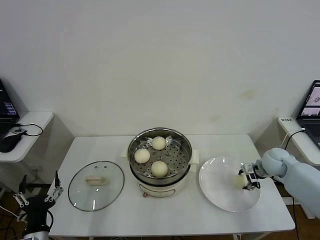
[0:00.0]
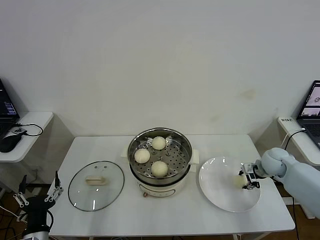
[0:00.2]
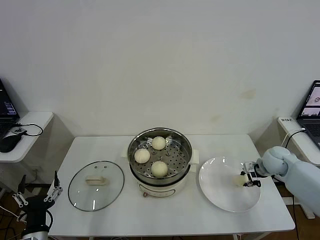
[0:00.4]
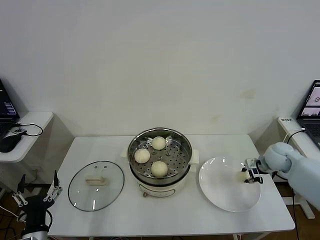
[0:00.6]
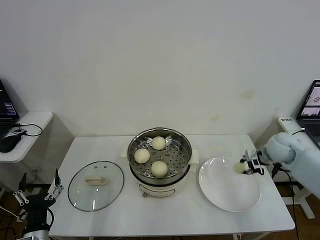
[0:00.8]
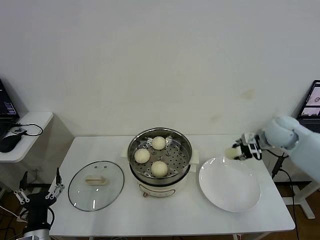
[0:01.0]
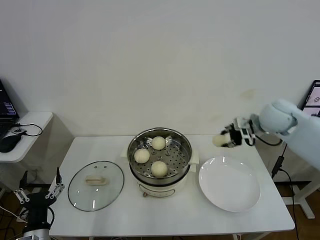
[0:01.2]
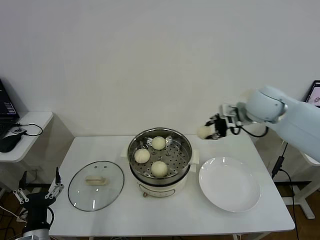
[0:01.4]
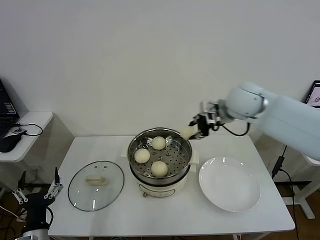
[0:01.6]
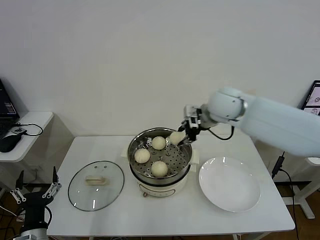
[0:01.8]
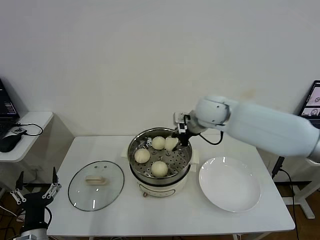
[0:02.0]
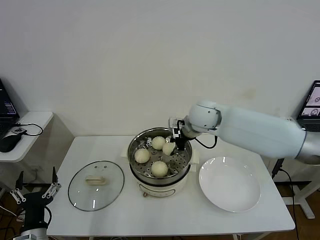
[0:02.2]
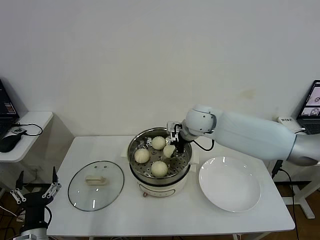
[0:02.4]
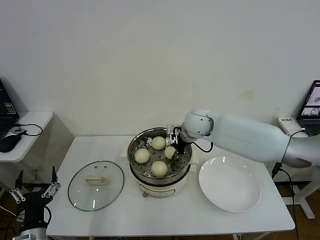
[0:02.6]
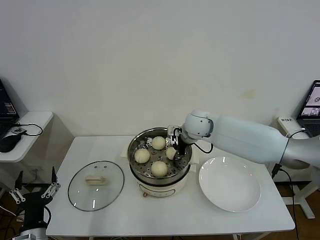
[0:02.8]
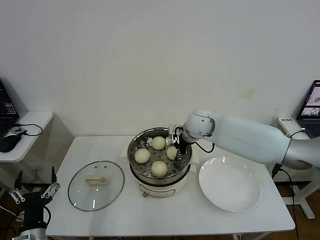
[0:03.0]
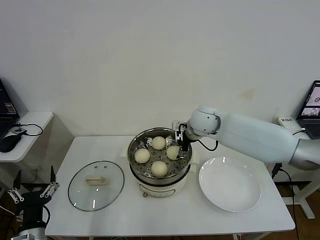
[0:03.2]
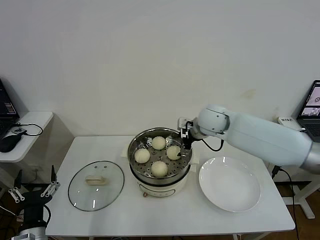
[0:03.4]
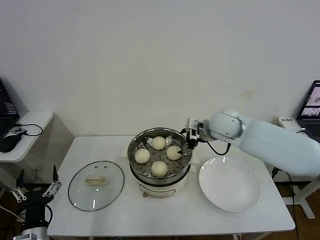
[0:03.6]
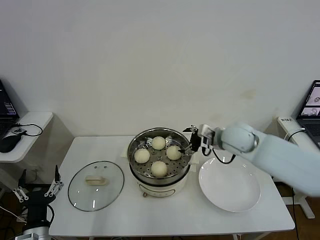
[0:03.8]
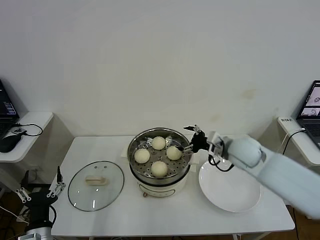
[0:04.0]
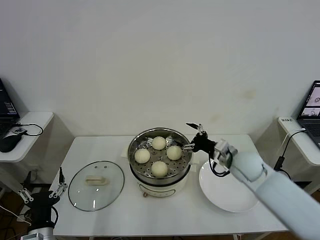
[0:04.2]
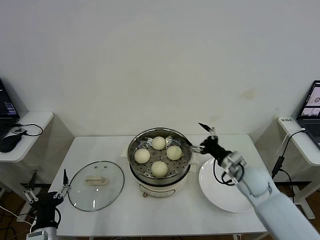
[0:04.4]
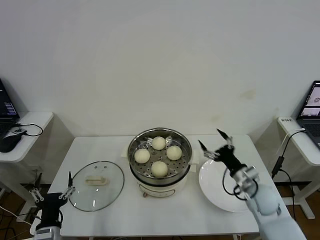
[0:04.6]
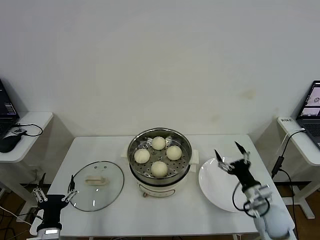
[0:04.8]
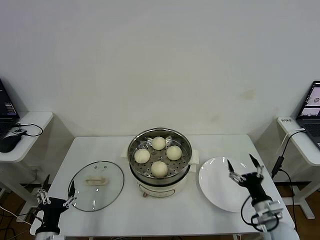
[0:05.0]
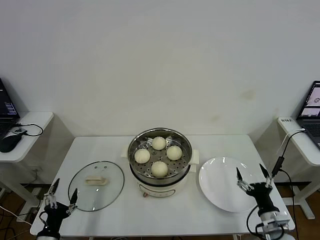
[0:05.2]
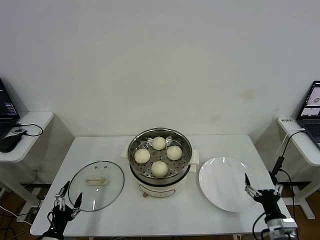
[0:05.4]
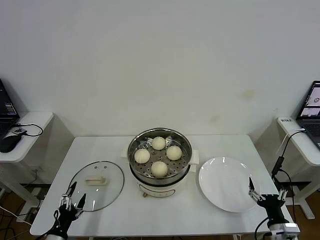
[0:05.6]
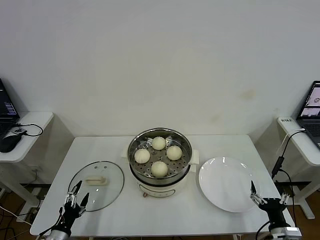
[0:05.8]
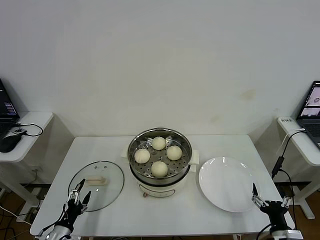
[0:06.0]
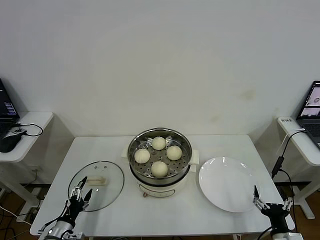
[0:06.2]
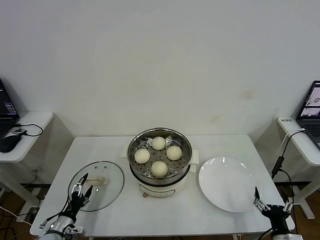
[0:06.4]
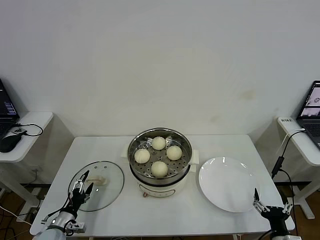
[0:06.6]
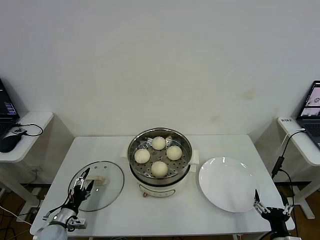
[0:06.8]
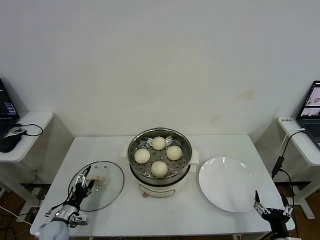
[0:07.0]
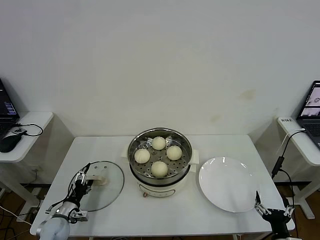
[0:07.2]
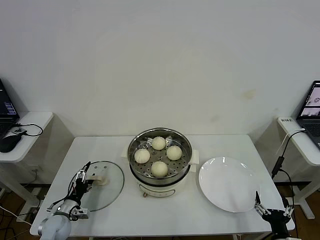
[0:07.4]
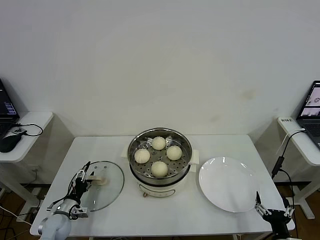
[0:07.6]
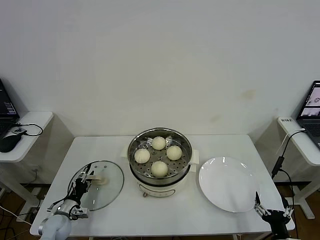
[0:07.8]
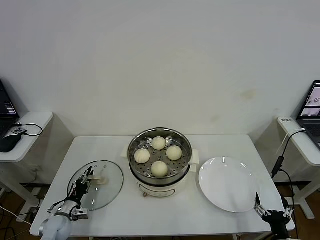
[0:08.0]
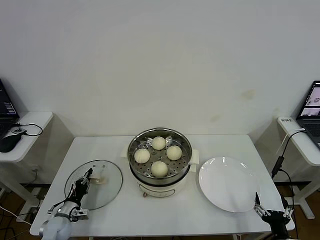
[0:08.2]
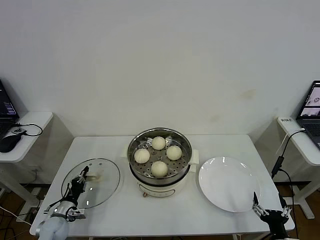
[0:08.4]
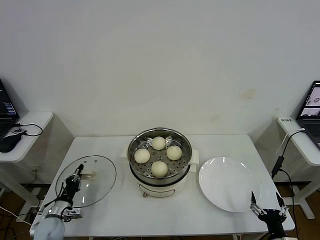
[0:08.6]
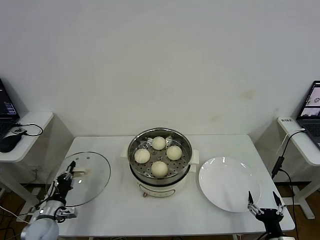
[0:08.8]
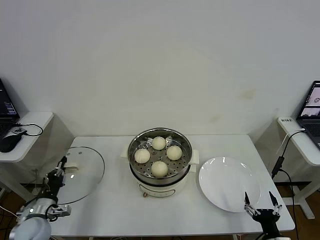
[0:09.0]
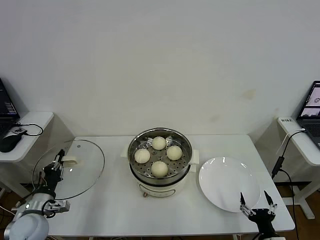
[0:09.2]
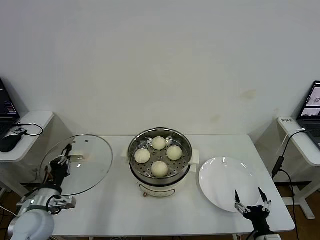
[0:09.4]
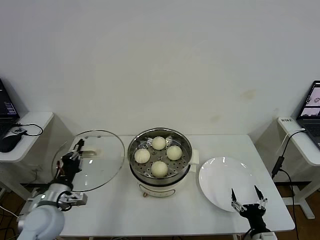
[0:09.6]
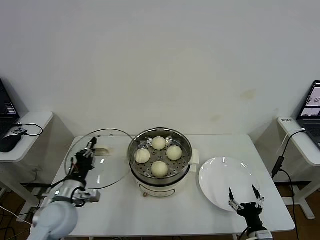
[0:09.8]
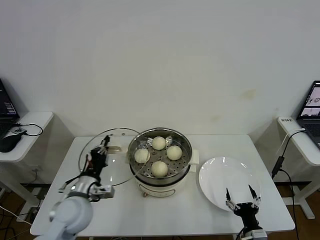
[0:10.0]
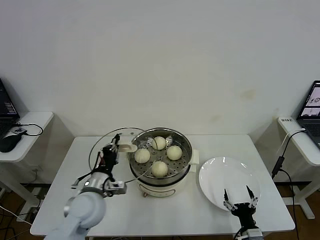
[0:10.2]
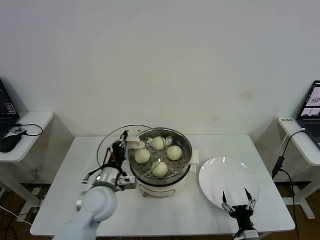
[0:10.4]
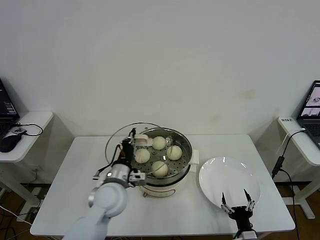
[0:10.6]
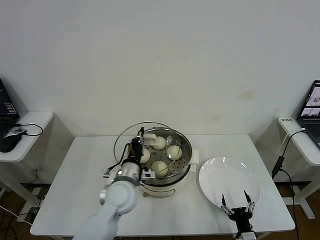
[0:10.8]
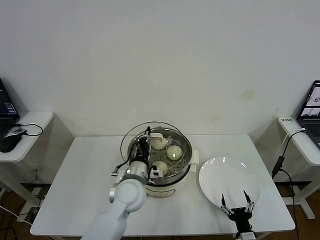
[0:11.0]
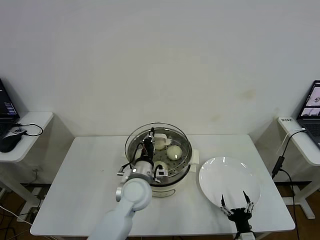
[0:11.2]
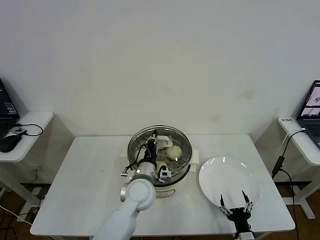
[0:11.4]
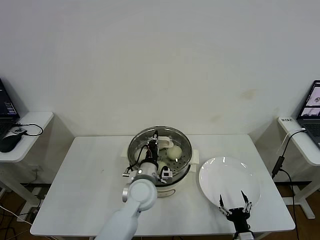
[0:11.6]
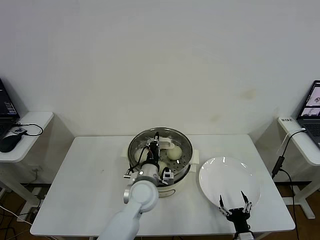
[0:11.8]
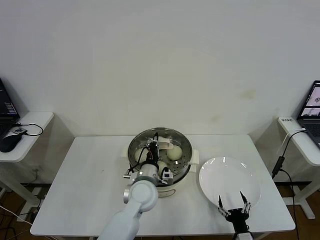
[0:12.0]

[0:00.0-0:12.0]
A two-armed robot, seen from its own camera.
Step, 0:00.4 to 0:03.2: Place the baozi on the steamer with right gripper.
Step, 0:03.4 to 0:08.4: Grasp the pot lid with left gripper.
0:00.0 to 0:01.6: The right gripper is displaced upward and to the left by approximately 30 cm, and closes its fingers.
0:01.6 to 0:03.0: The right gripper is displaced downward and to the left by about 15 cm, and opens.
0:03.0 to 0:04.4: The right gripper goes about 25 cm to the right, backward and downward, and opens.
0:04.4 to 0:06.0: The left gripper is displaced downward and to the left by approximately 10 cm, while the right gripper goes approximately 25 cm backward and downward.
0:06.0 to 0:07.6: The left gripper moves forward, roughly 10 cm.
0:07.6 to 0:09.0: The left gripper shifts roughly 10 cm upward, and closes.
0:09.0 to 0:10.4: The left gripper goes about 25 cm to the right and upward. The right gripper is displaced to the left by some 5 cm.
0:10.4 to 0:12.0: The left gripper shifts some 15 cm to the right.

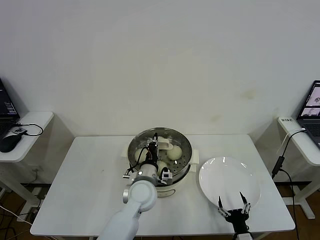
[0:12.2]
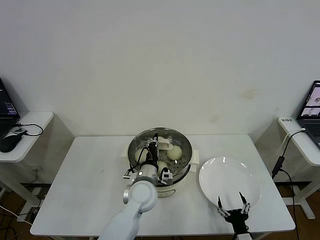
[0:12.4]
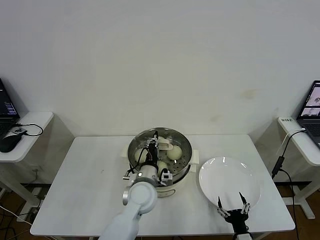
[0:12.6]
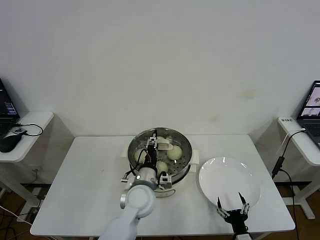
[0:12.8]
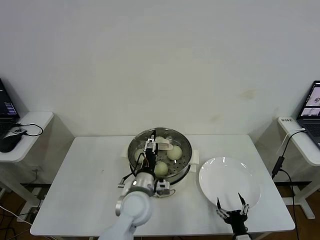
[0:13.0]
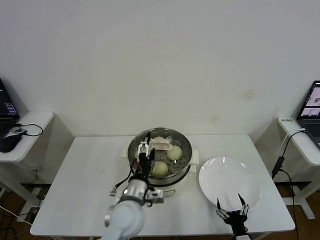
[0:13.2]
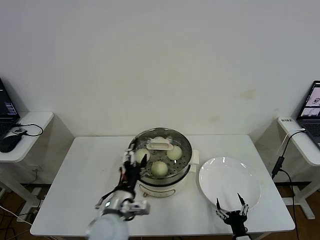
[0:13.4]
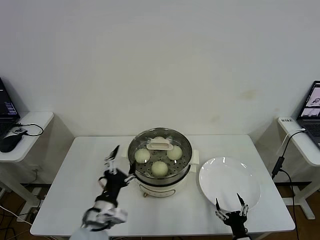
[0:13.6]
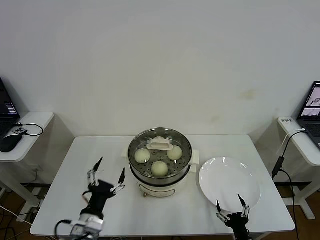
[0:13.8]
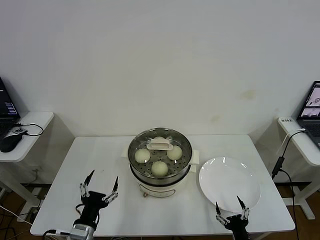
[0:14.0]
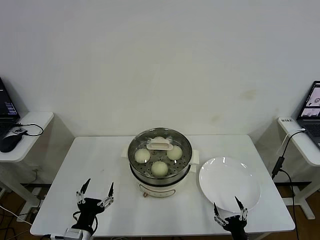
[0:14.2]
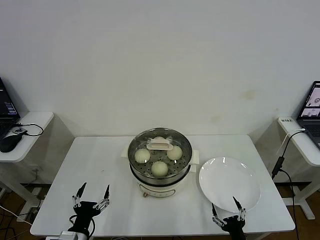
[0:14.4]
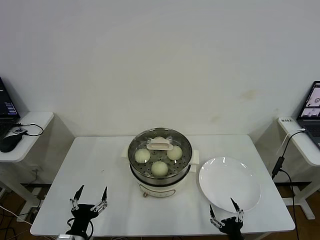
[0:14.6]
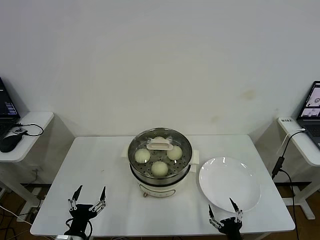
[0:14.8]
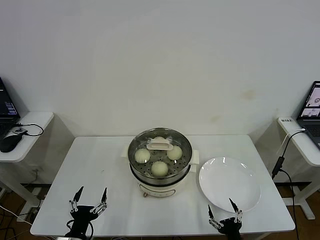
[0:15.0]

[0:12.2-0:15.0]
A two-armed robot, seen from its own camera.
0:12.2 to 0:13.6: The left gripper goes about 15 cm backward and to the left, and opens up.
0:13.6 to 0:15.0: The left gripper moves to the left, downward and backward, approximately 15 cm.

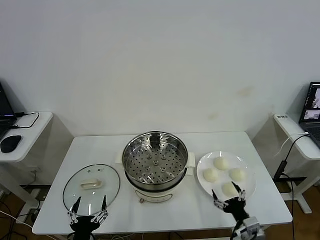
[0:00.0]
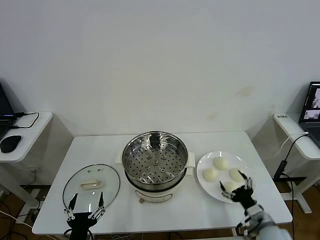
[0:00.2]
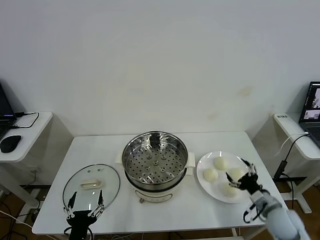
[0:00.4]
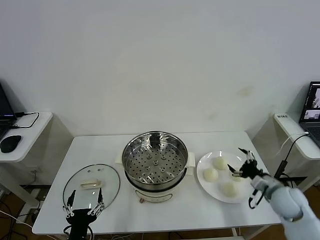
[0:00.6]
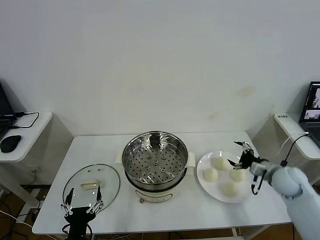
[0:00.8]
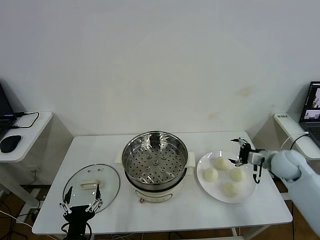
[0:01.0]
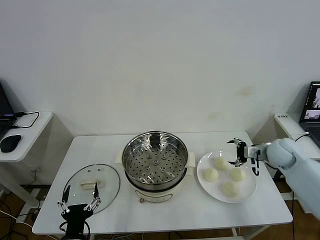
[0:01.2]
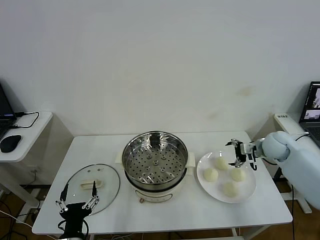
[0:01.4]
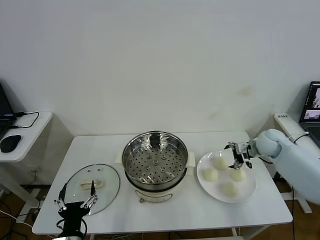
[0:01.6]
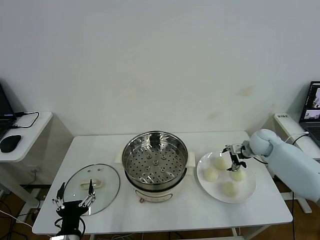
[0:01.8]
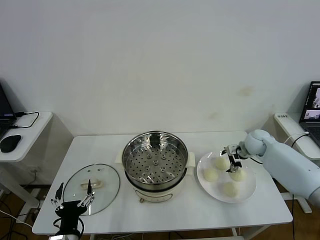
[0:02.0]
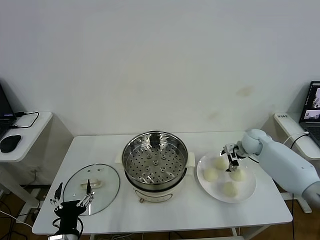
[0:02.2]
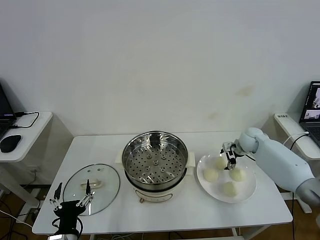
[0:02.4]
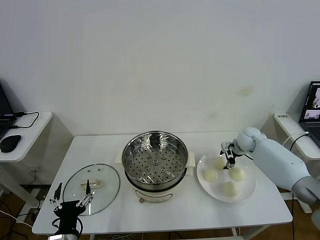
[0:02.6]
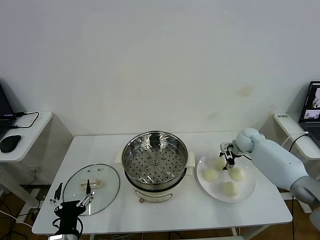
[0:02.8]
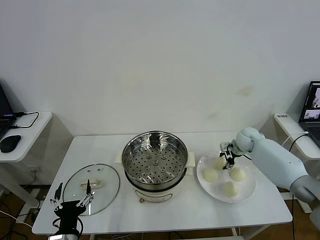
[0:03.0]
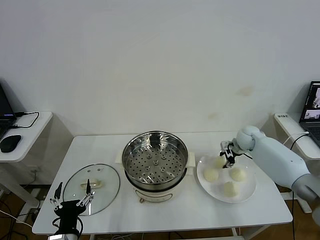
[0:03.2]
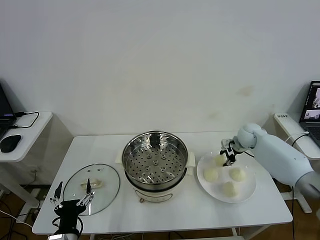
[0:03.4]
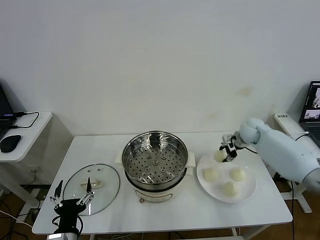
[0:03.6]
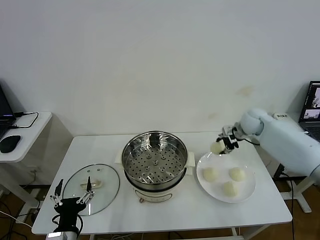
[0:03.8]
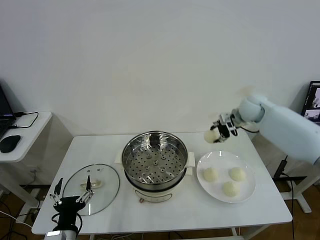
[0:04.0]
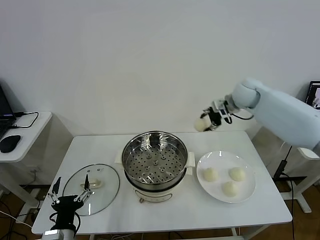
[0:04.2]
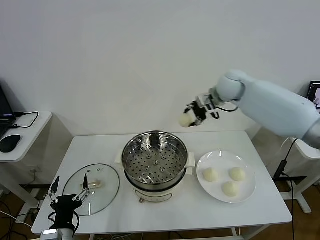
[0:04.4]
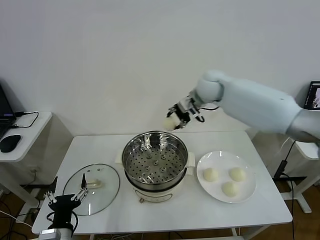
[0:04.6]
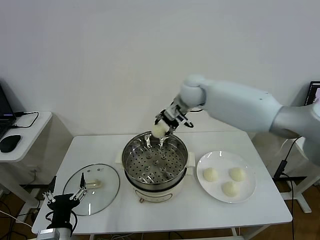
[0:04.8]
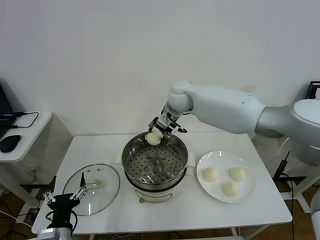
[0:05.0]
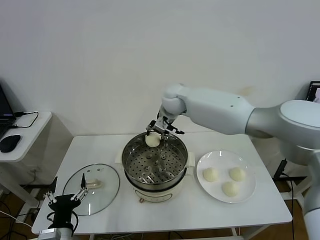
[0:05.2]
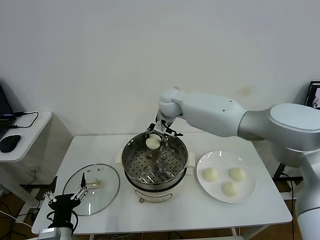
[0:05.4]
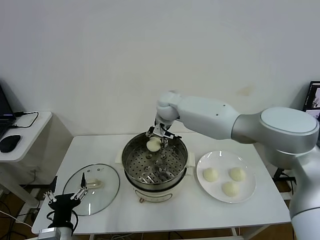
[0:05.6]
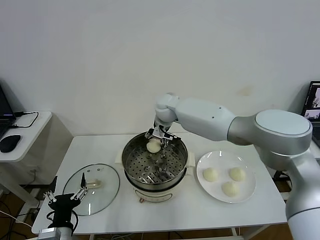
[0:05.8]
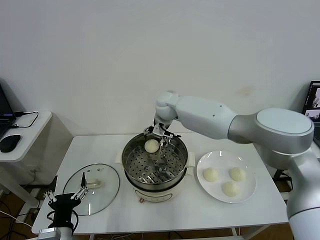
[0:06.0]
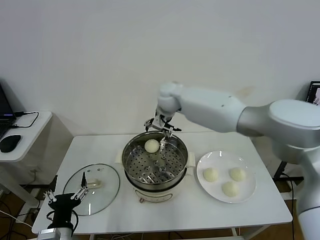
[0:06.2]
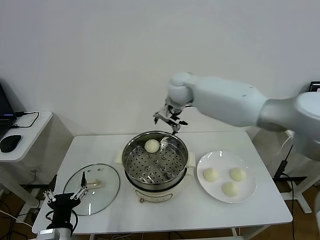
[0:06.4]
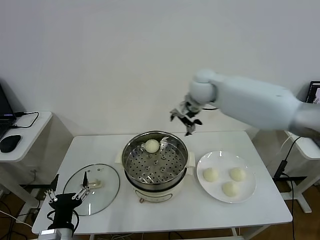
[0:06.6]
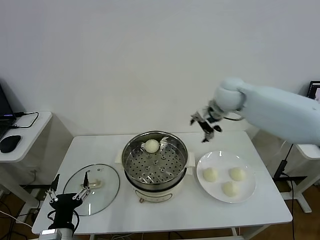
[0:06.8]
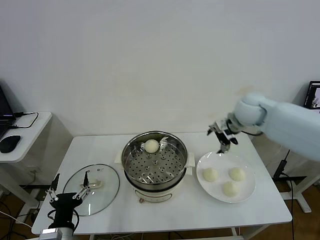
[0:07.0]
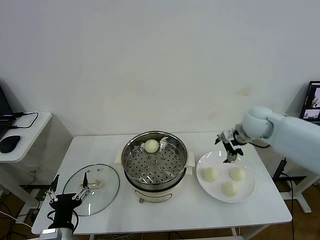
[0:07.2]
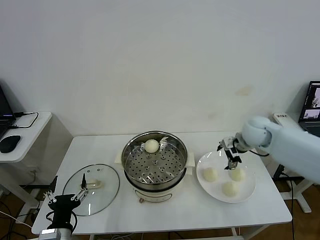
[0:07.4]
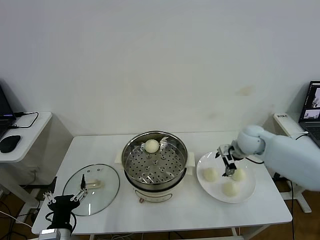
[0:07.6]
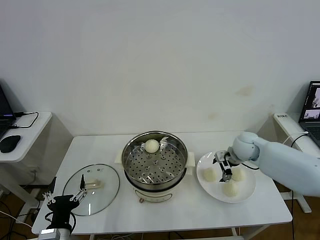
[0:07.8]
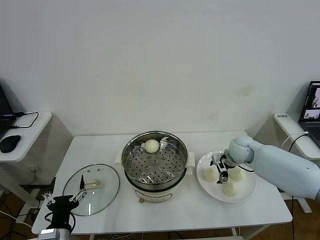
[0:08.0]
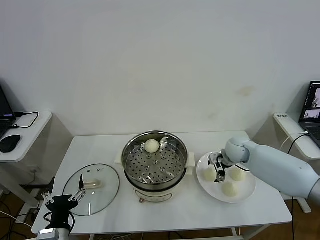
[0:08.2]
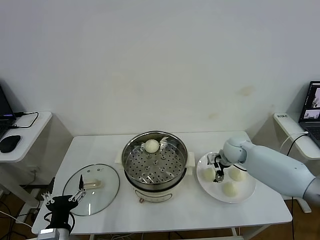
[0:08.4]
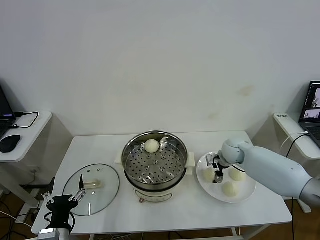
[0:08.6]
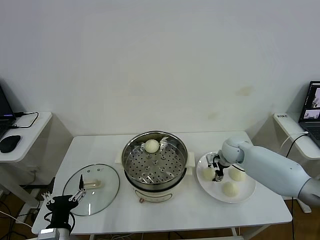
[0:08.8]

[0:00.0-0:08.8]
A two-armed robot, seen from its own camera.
Step, 0:00.0 to 0:02.8: Grasp the baozi in the plate with right gripper.
Step, 0:03.0 to 0:06.0: Place the baozi on the steamer with right gripper.
0:01.4 to 0:03.0: The right gripper goes some 10 cm forward and downward, and closes up.
0:03.0 to 0:04.4: The right gripper shifts roughly 30 cm upward and to the left.
0:04.4 to 0:05.8: The right gripper travels to the left and downward by some 20 cm, and opens its fingers.
0:05.8 to 0:07.4: The right gripper is displaced to the right by approximately 30 cm, and opens its fingers.
0:07.4 to 0:08.8: The right gripper heads downward, covering roughly 10 cm, and closes up.
